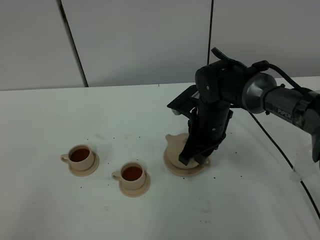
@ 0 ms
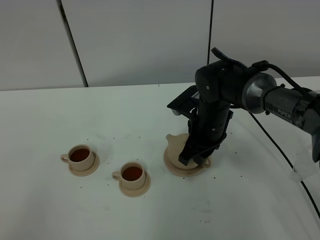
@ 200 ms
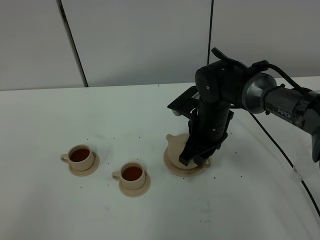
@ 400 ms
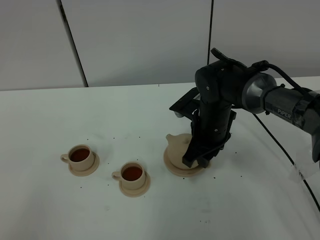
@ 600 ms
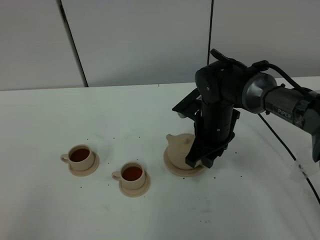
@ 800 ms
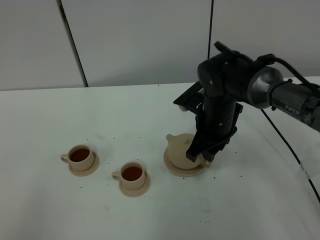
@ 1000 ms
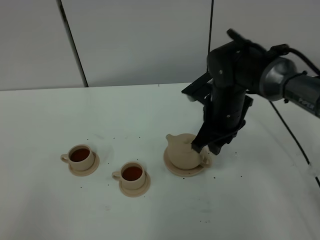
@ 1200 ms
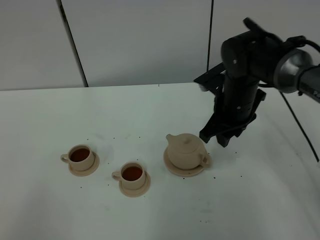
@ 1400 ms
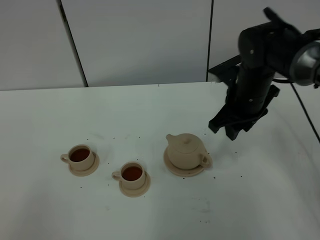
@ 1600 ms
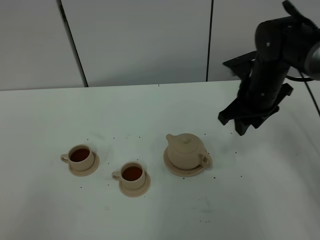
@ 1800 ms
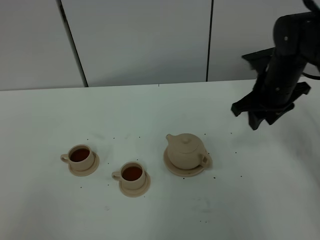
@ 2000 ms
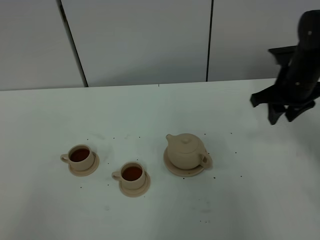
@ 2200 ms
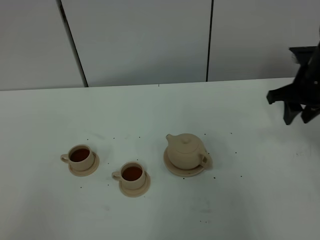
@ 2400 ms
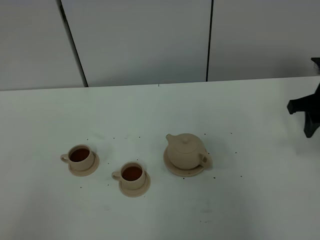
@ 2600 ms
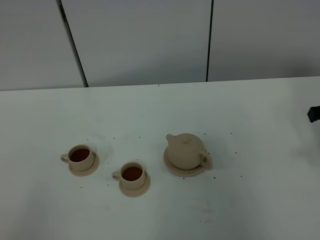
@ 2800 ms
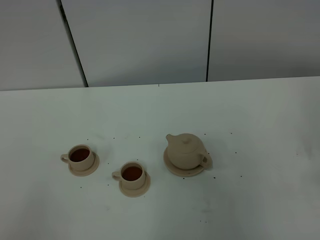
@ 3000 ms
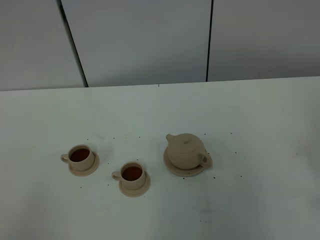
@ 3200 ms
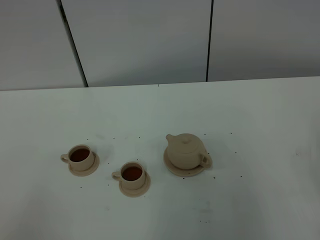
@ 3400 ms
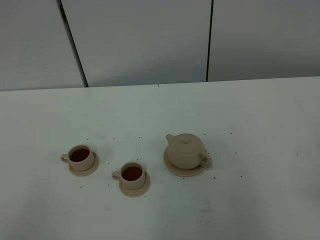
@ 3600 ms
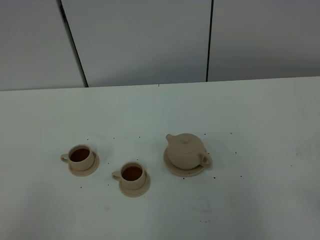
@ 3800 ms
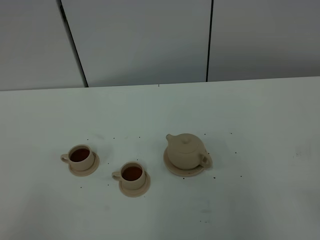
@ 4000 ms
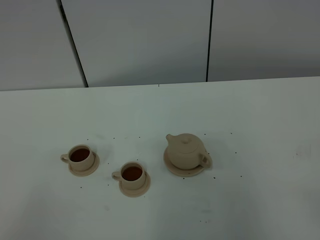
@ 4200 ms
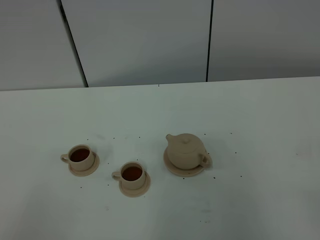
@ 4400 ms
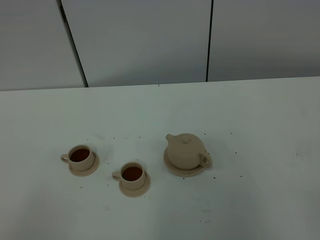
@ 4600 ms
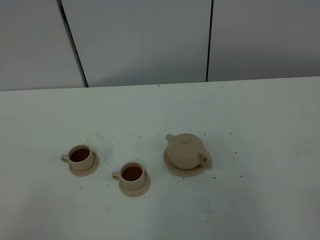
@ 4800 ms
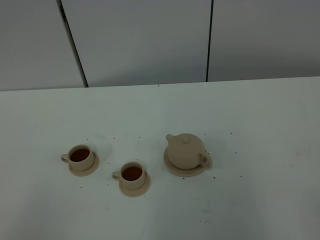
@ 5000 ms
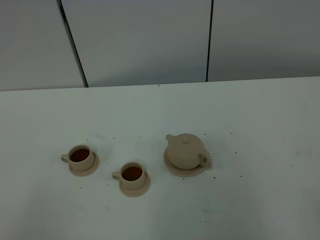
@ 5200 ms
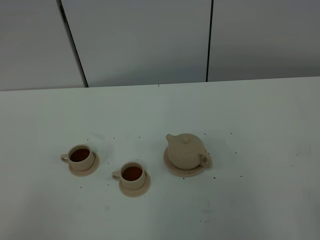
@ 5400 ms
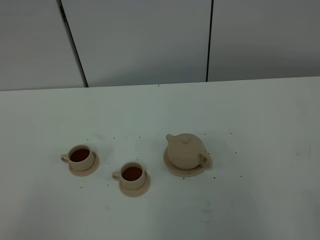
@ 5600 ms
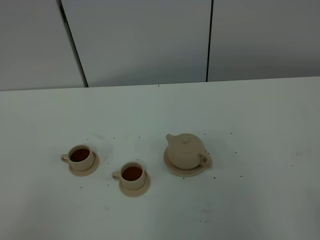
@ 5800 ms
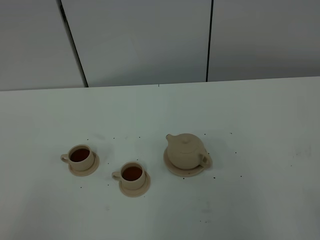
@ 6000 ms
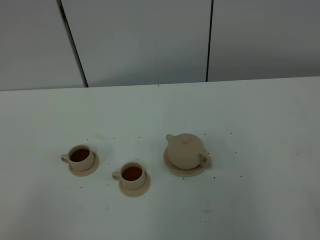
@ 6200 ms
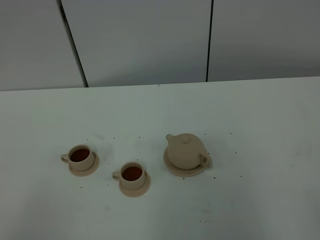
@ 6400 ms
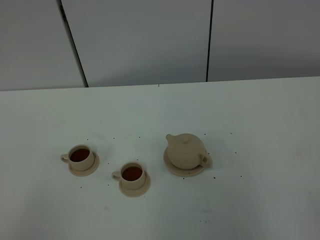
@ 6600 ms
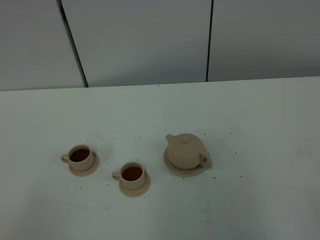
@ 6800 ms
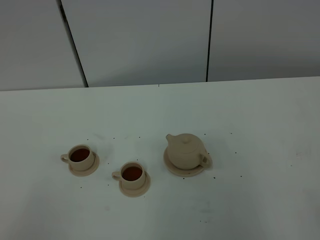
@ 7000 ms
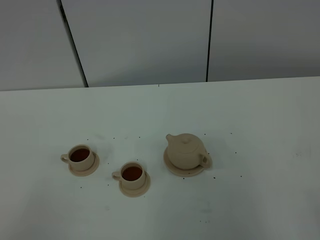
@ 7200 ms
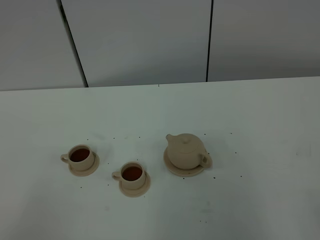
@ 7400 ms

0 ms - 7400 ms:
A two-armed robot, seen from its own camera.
Task of the whole recording: grasp the brown teapot and pour the tea into the two brown teacups one by one, put the brown teapot back in its original place.
0 ms - 1400 ms: The right gripper moves upward and to the right, some 5 cm.
1400 ms - 3000 ms: The right gripper moves to the right and backward, approximately 25 cm.
6000 ms - 7400 ms: Neither gripper changes place.
